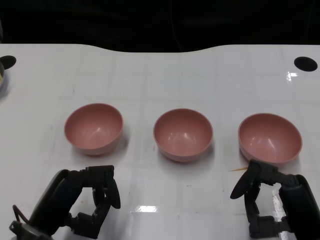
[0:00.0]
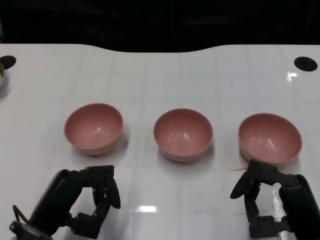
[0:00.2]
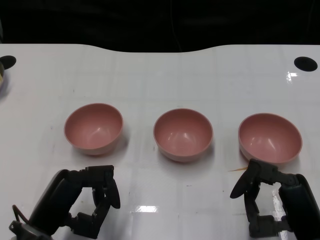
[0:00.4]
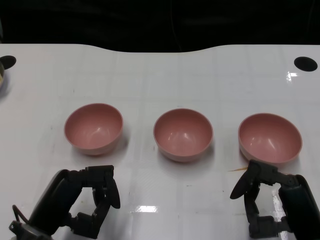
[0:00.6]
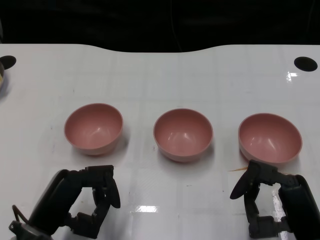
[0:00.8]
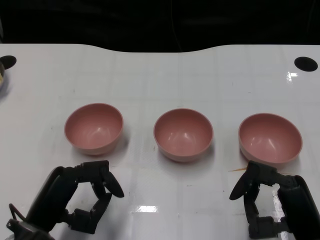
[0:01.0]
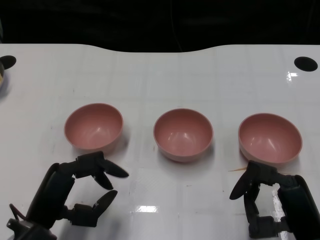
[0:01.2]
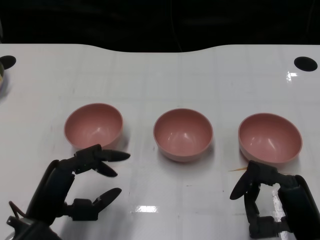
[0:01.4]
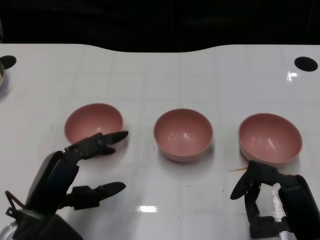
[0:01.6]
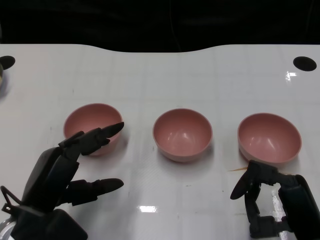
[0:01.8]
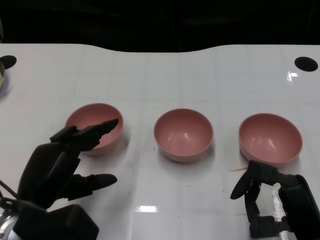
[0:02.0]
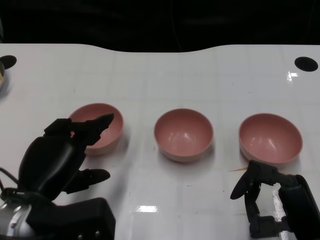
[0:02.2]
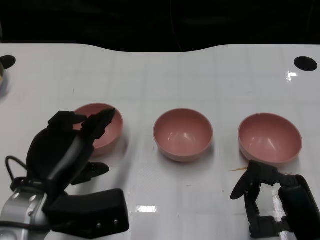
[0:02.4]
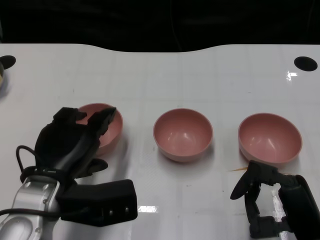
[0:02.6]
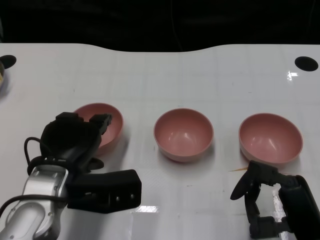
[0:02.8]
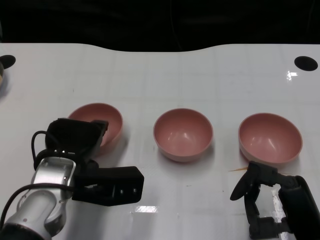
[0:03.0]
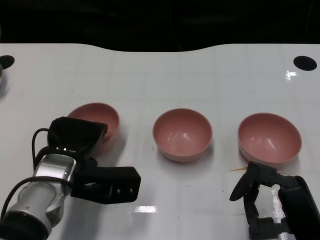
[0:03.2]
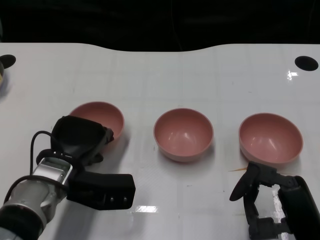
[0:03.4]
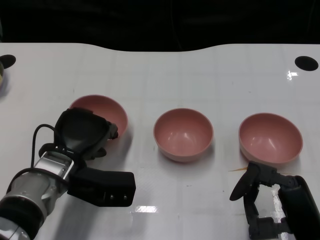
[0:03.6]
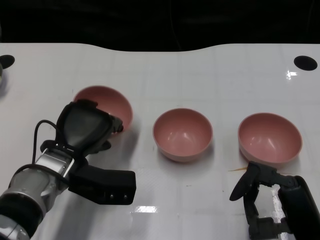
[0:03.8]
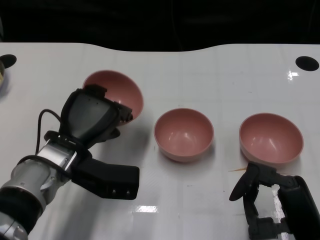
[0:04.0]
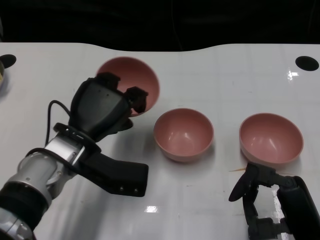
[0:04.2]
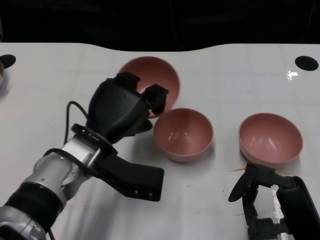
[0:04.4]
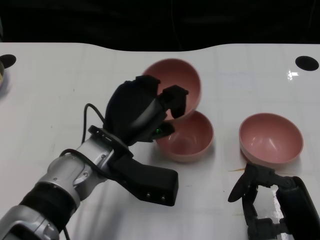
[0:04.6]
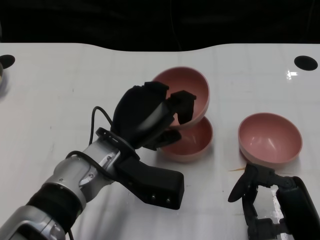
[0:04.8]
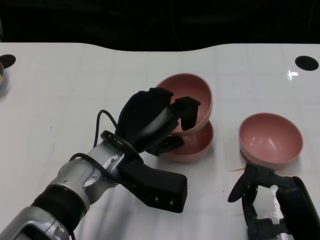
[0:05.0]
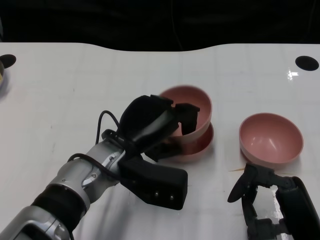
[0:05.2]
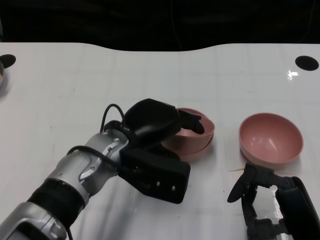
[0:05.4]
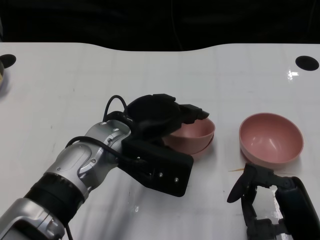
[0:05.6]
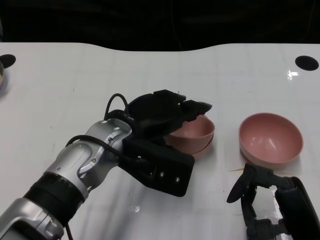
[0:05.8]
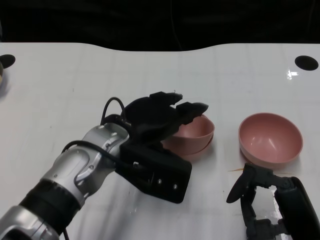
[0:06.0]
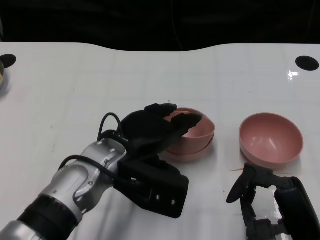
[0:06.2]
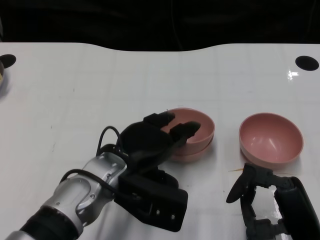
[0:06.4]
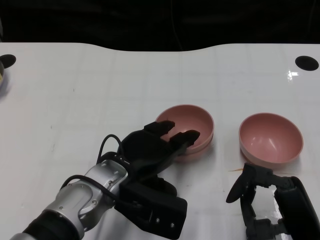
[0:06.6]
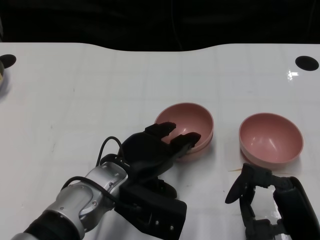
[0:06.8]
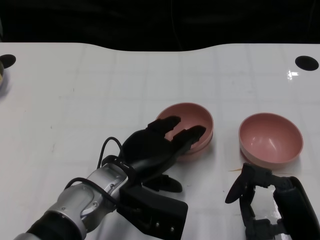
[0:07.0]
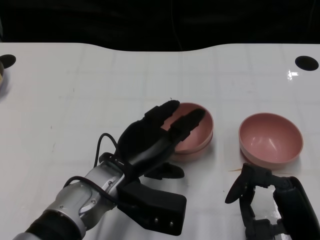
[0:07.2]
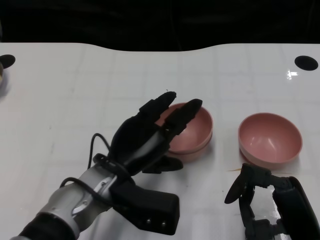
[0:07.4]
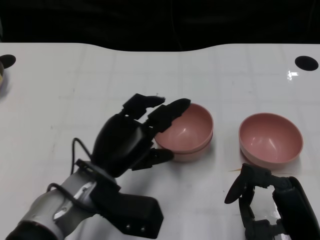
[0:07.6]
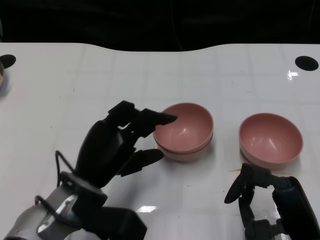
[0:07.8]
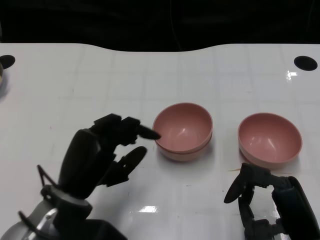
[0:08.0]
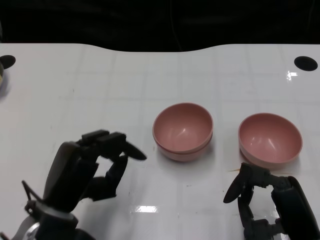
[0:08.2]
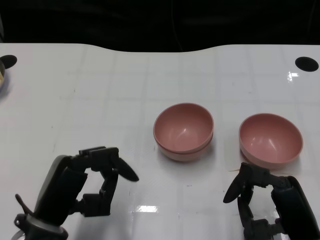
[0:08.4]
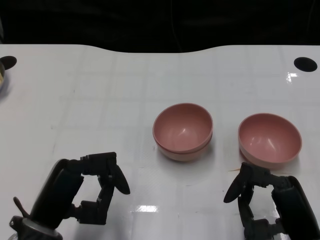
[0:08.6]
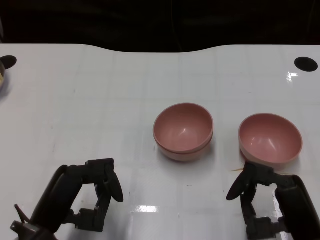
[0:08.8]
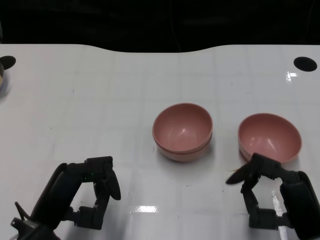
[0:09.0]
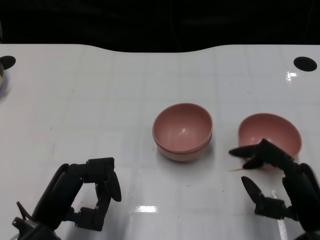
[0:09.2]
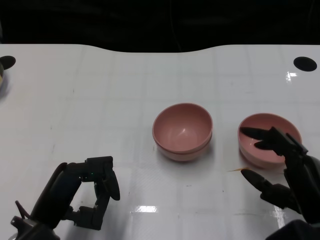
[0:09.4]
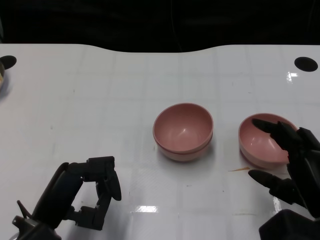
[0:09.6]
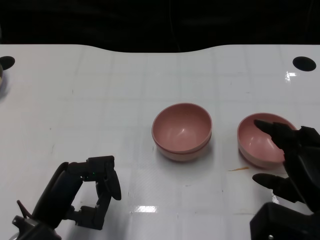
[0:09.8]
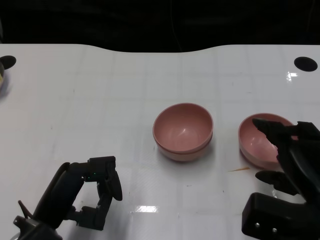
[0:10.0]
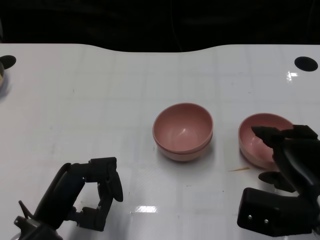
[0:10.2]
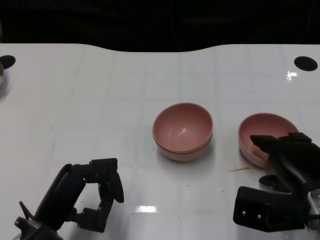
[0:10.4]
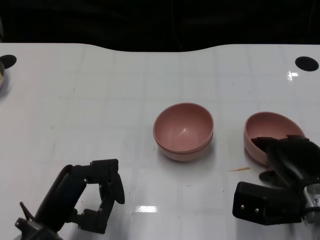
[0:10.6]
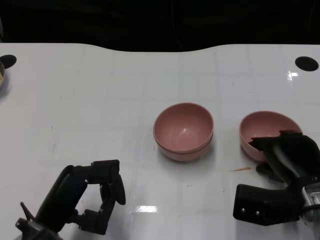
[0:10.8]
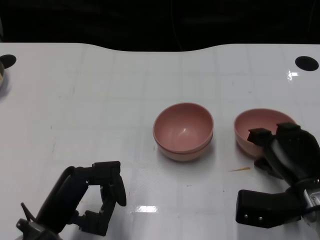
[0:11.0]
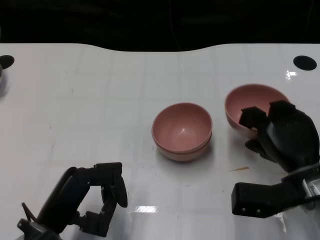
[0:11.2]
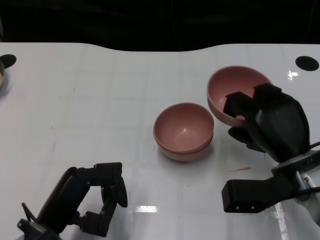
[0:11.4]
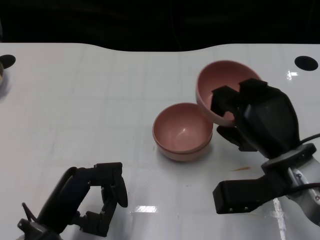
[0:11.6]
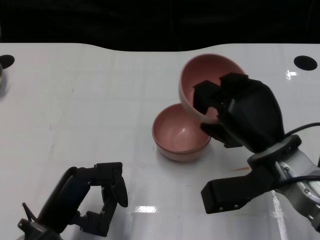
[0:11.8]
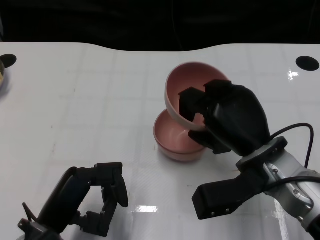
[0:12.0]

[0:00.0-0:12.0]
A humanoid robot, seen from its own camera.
Task of the whole recording: Pick up the bowl on one side of the table and place it on top of the middle bowl, then pick up the bowl on the other side of the table and place it on top of the middle bowls.
Step, 0:01.2 to 0:03.4: Grasp the bowl on the left with the left gripper.
Step, 0:03.8 to 0:07.6: Place the bowl on the left onto the bowl in the middle with left gripper.
Step, 0:07.8 to 0:10.8: Grasp the bowl on the right with the right gripper.
0:01.6 to 0:03.0: The left hand moves forward, roughly 5 cm.
0:03.0 to 0:04.4: The left hand shifts by roughly 5 cm.
0:06.0 to 0:07.6: The left hand is displaced downward by roughly 5 cm.
0:07.6 to 0:09.0: The left hand travels to the left and backward by approximately 10 cm.
0:09.0 to 0:10.4: The right hand heads forward, covering approximately 5 cm.
0:10.4 to 0:12.0: The right hand shifts approximately 10 cm to the left.

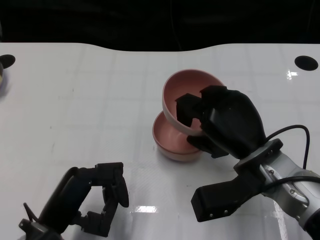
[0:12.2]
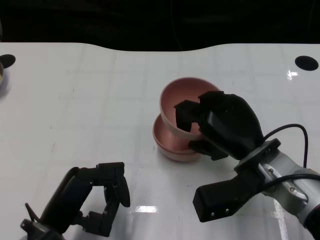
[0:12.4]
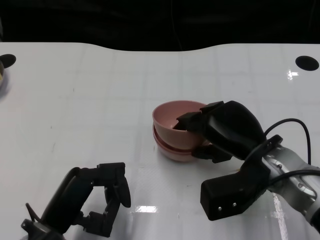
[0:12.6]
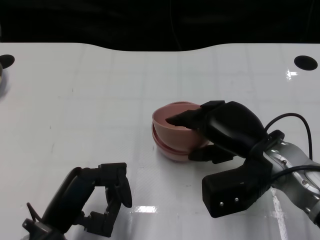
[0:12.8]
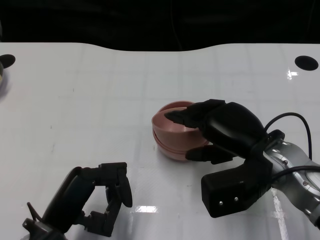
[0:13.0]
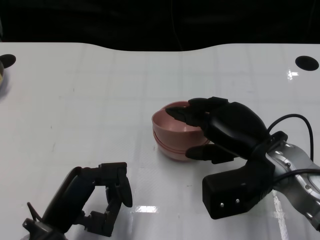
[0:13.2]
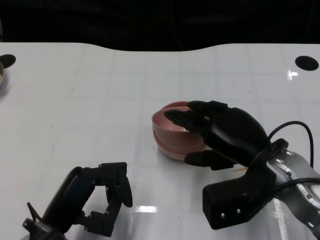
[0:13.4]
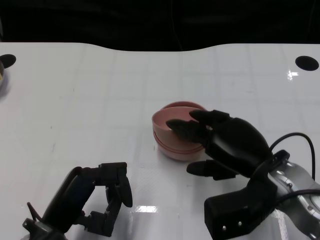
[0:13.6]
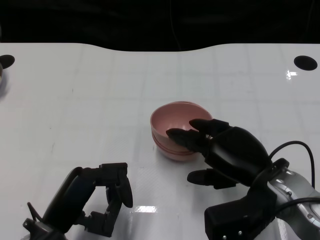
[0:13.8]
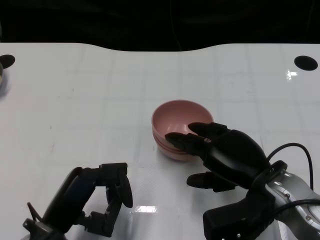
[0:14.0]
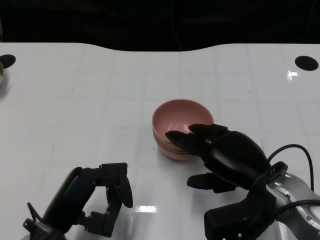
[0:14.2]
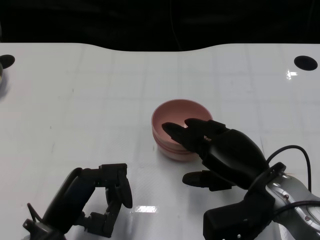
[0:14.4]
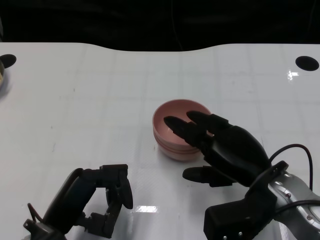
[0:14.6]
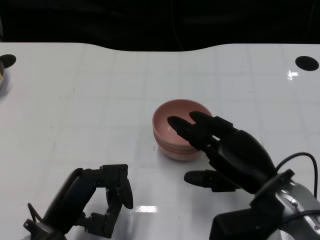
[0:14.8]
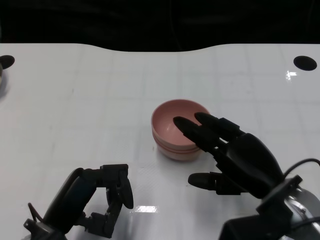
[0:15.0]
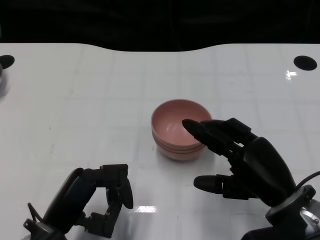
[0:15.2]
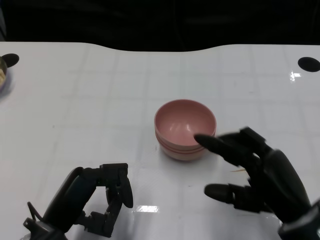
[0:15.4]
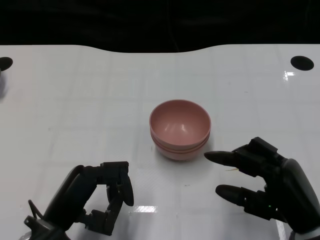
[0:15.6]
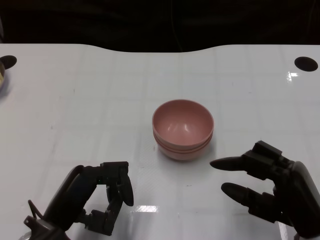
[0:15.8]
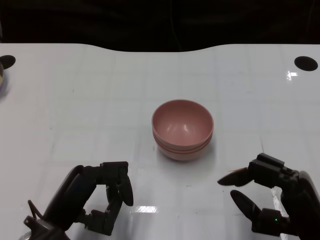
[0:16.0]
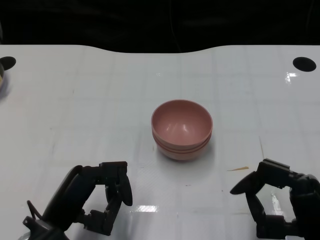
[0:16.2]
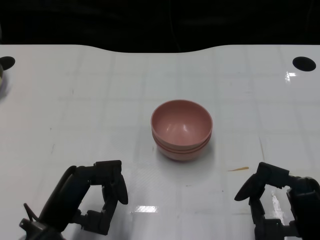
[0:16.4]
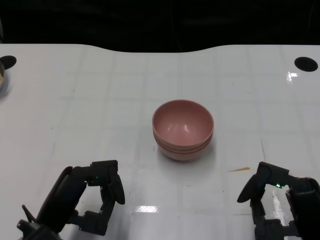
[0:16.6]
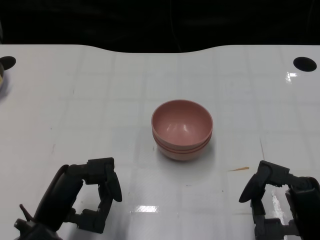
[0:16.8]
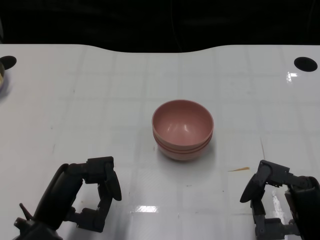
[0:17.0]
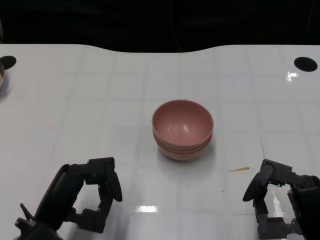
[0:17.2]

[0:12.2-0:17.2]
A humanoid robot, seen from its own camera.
Task of the whole recording: Pick up the bowl on one side of the table and place it on top of the middle bowl, then pick up the bowl on the other side of the table and place it on top of the middle bowls.
Step, 0:12.2 to 0:15.0: Place the bowl on the right onto the bowl in the middle with right gripper.
0:13.8 to 0:15.6: The right hand heads backward, covering about 5 cm.

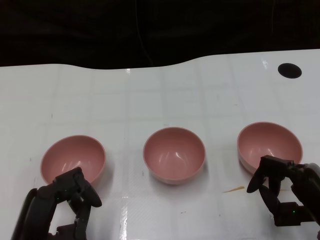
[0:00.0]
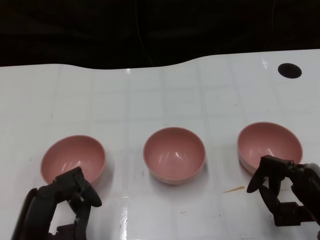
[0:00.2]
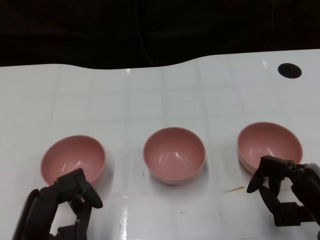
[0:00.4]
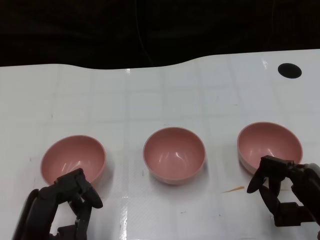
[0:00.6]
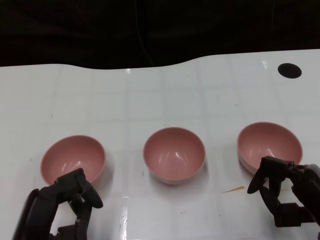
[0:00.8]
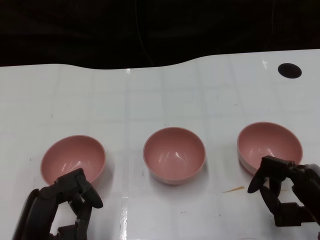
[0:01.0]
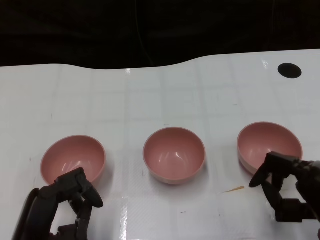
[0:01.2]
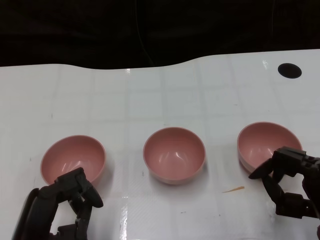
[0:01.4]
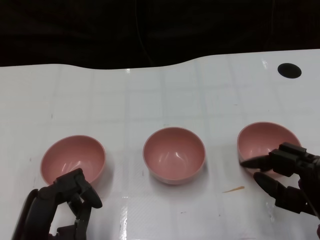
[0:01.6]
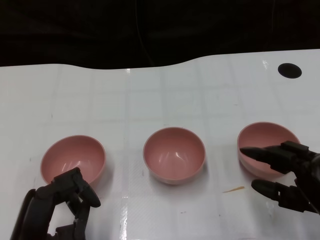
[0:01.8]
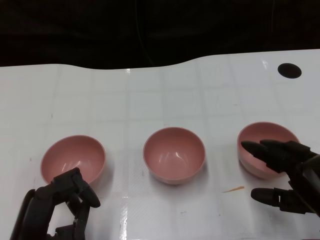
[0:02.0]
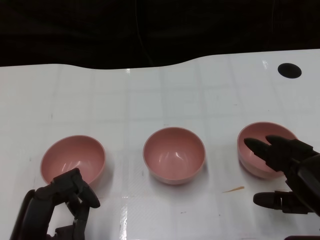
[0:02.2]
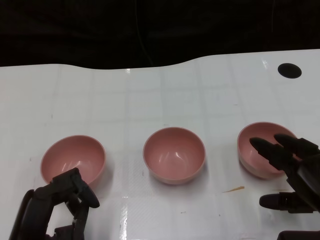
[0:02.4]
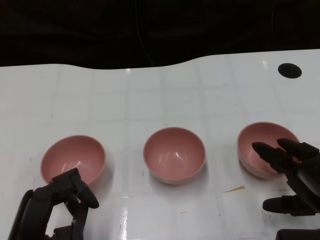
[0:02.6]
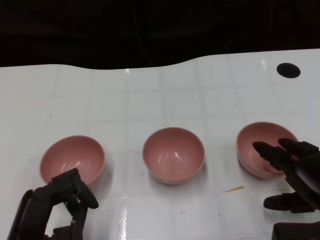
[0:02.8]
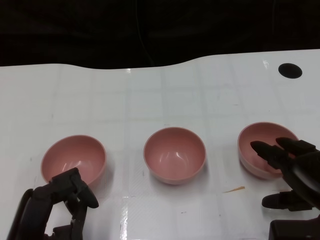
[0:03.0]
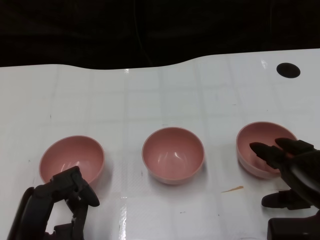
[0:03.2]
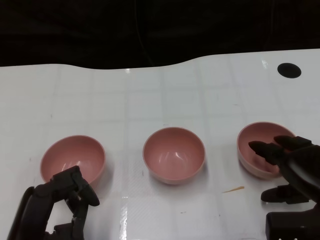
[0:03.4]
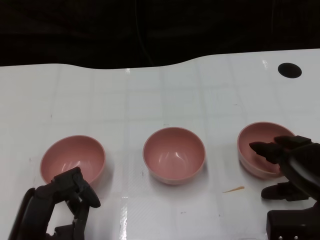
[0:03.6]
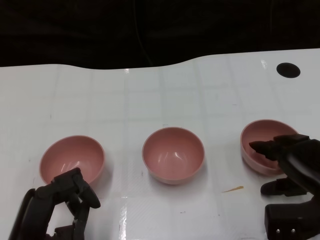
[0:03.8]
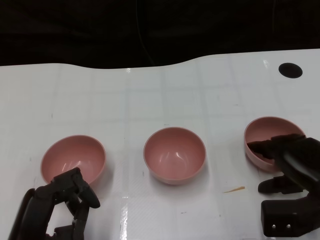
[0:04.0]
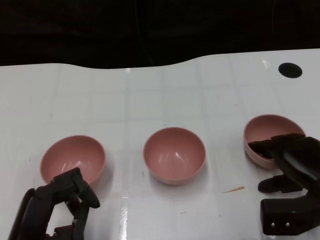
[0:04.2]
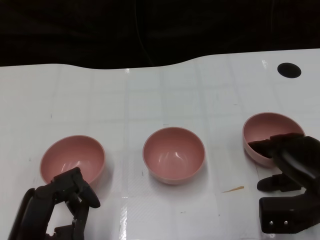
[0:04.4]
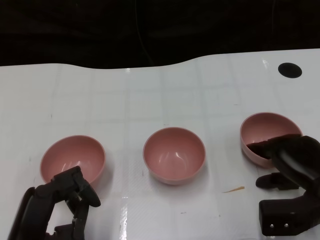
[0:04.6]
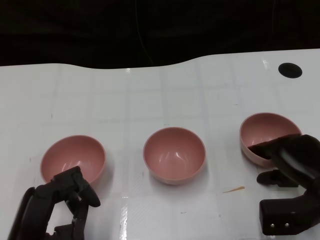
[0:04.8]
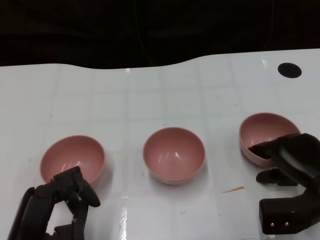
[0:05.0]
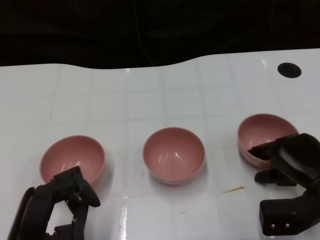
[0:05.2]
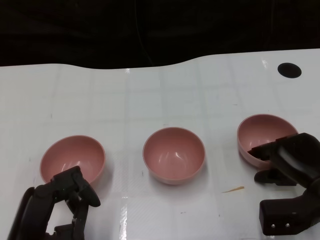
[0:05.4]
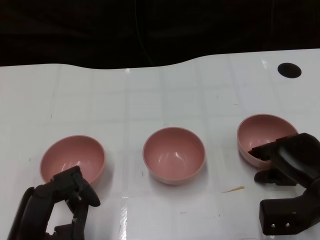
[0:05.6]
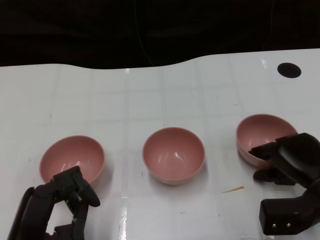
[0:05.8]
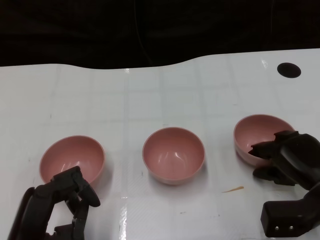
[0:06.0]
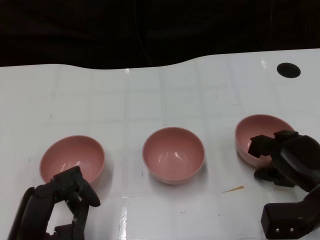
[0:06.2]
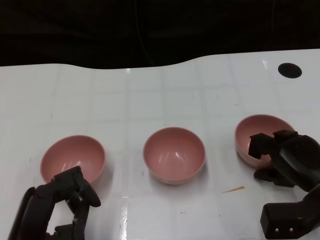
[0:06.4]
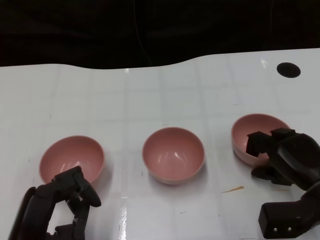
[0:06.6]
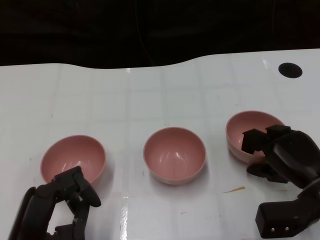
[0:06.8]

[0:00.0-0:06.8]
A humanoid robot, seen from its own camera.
Task of the whole recording: Pick up the bowl on one side of the table and place it on top of the middle bowl, then pick up the bowl on the other side of the table and place it on top of the middle bowls.
Step, 0:01.4 to 0:06.6: Grasp the bowl on the right with the right gripper.
0:02.8 to 0:06.8: There are only small adjustments of the hands.
